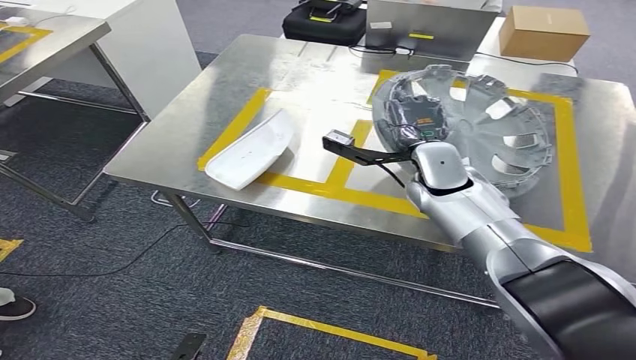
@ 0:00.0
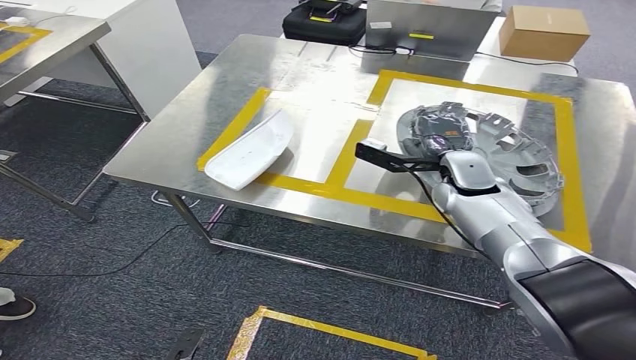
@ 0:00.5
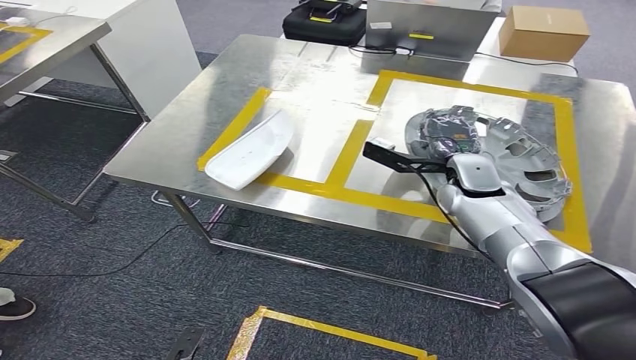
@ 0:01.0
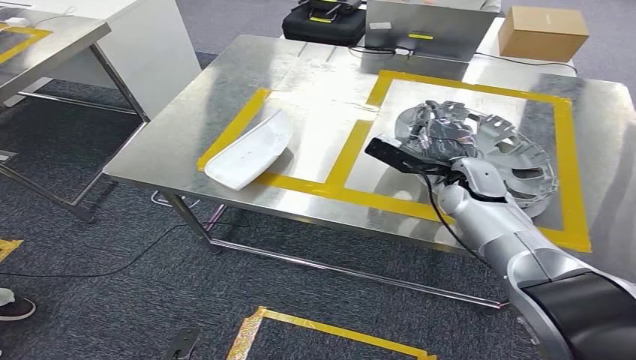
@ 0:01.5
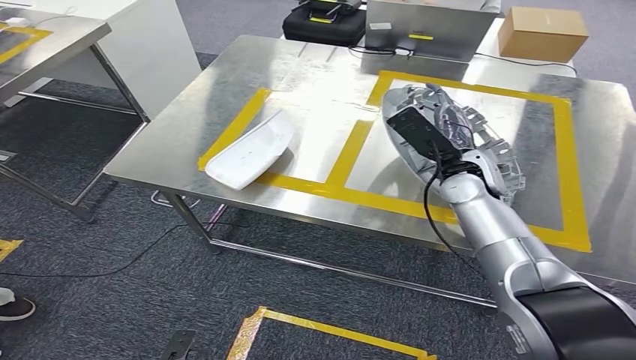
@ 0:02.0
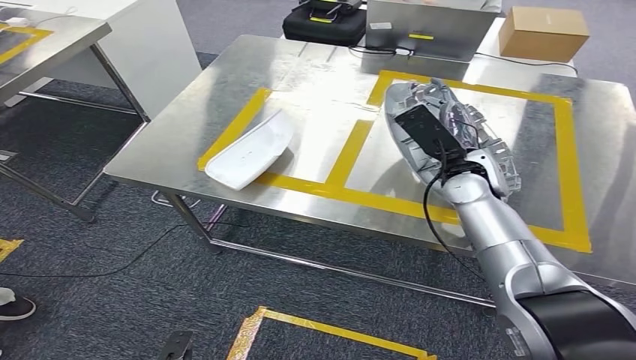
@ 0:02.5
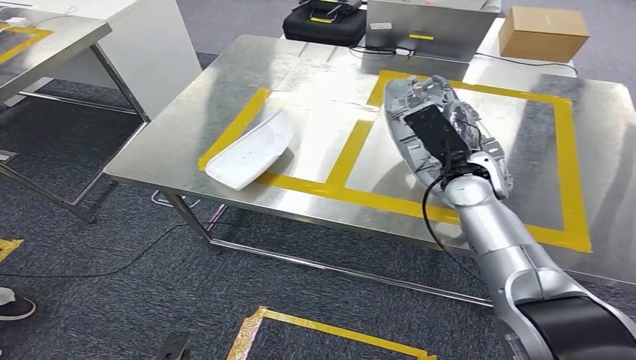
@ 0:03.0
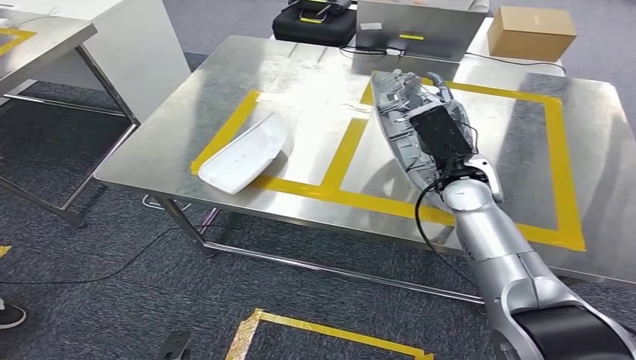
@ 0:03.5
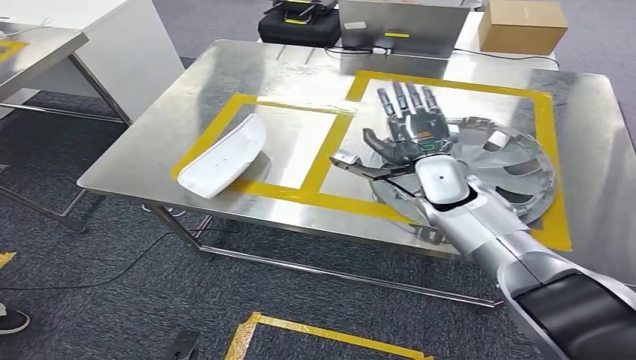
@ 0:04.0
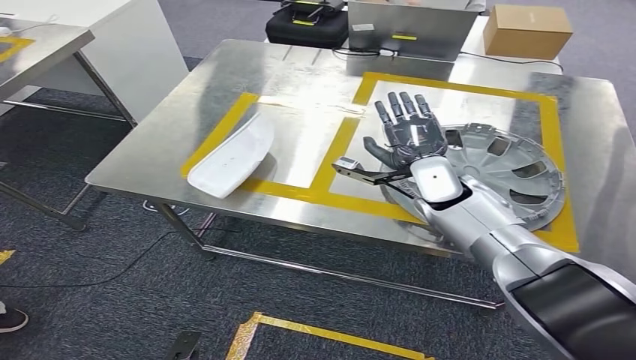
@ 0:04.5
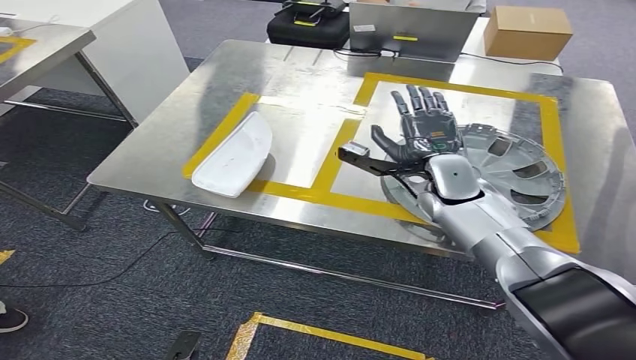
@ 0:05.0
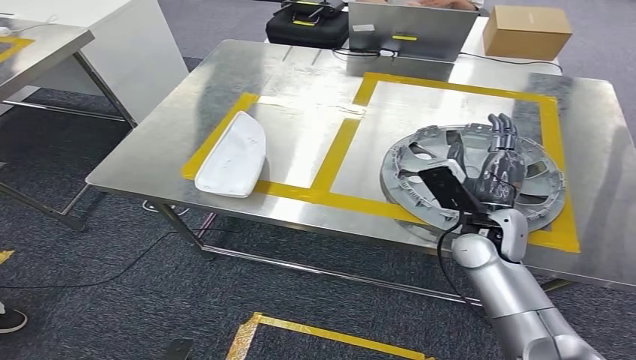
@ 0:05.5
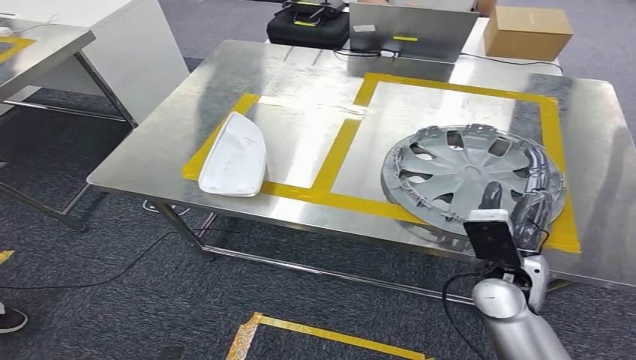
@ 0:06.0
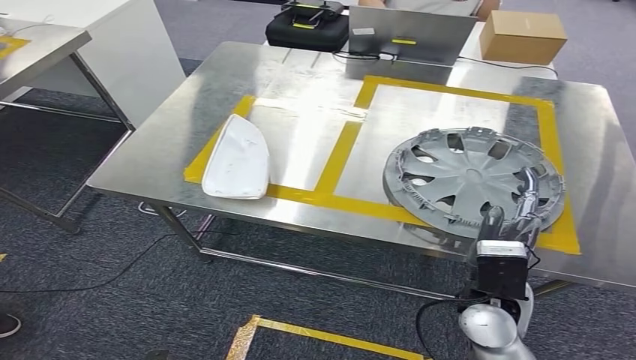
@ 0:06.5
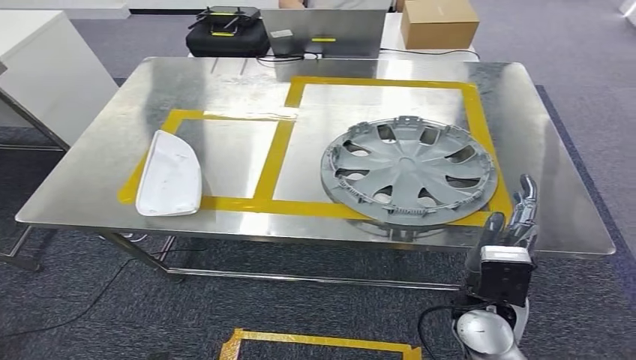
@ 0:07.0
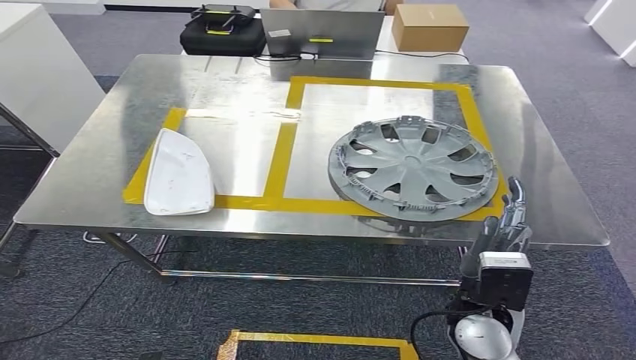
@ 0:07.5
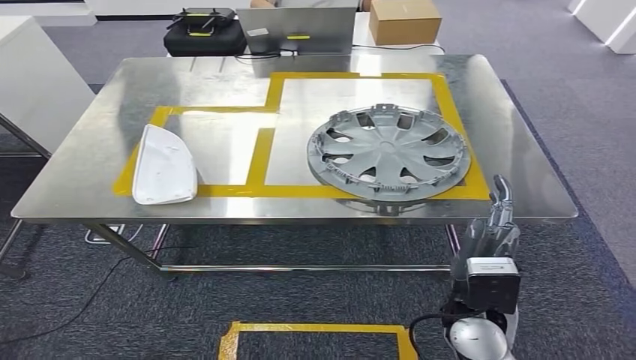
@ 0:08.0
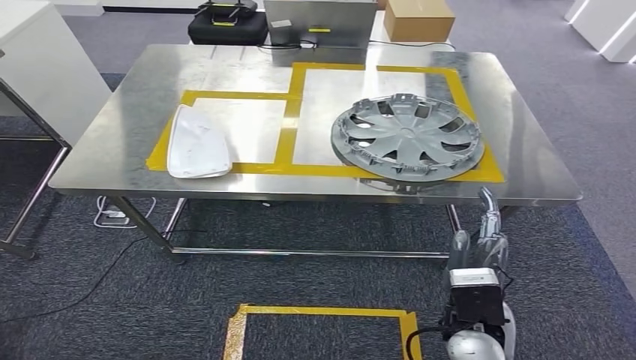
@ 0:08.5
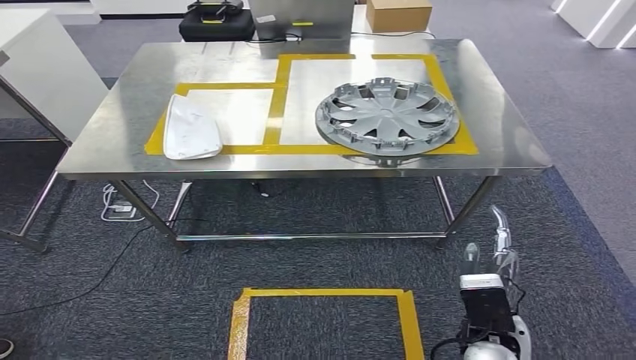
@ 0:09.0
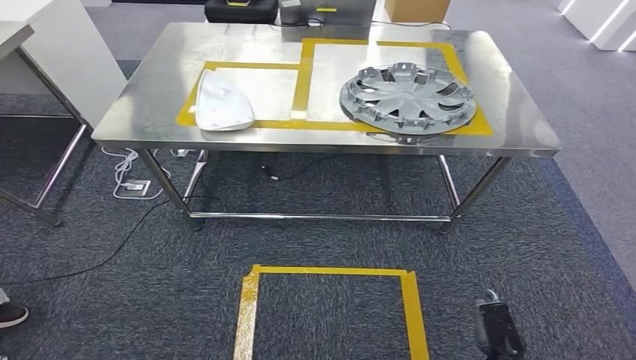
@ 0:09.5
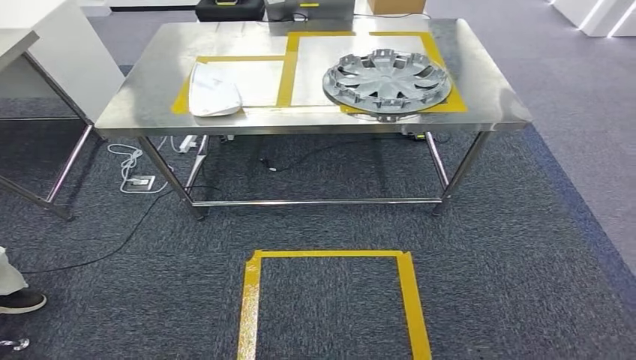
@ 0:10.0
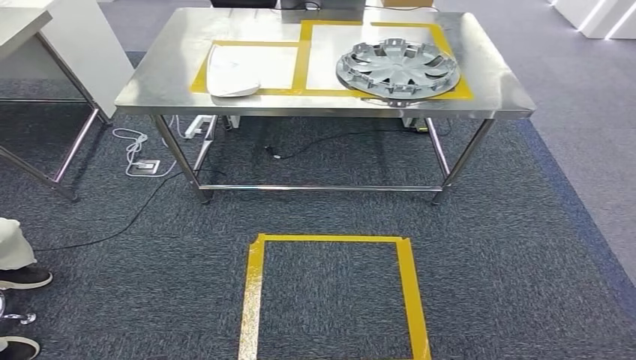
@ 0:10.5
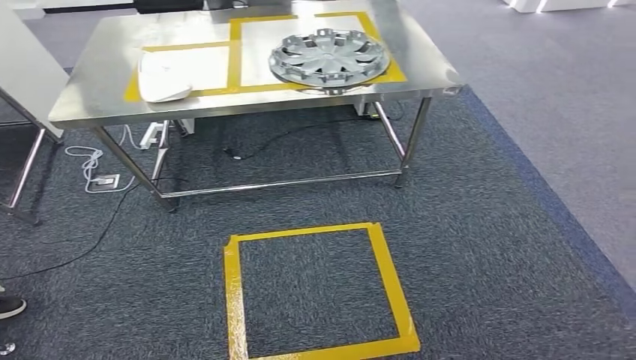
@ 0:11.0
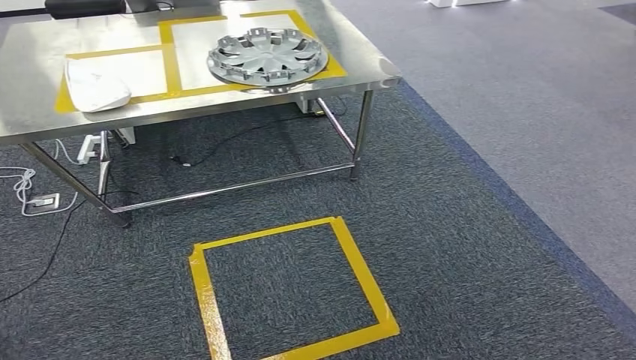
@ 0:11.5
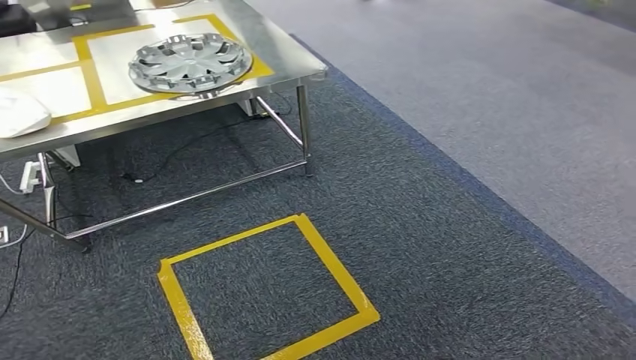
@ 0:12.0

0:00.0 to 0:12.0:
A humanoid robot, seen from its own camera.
Step, 0:00.0 to 0:11.5: Insert the small parts into the corresponding holes on the workbench.

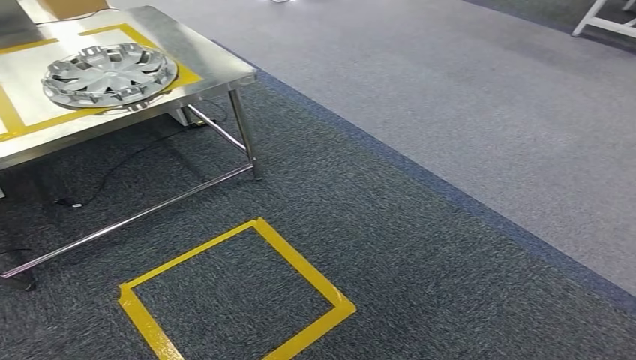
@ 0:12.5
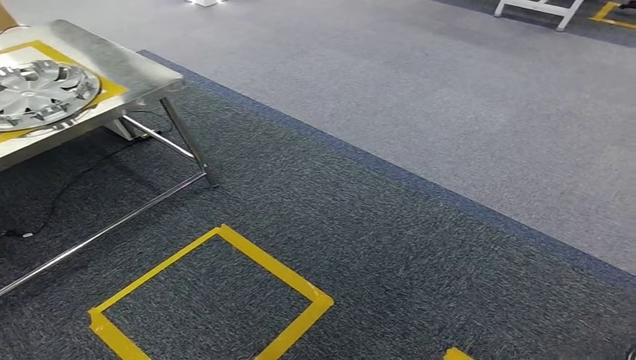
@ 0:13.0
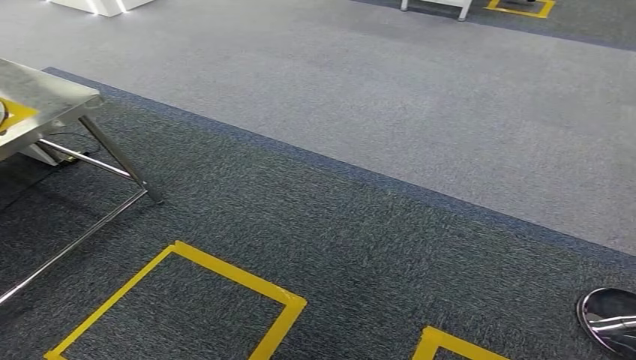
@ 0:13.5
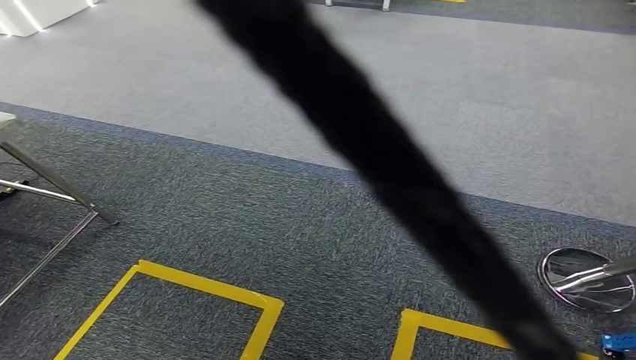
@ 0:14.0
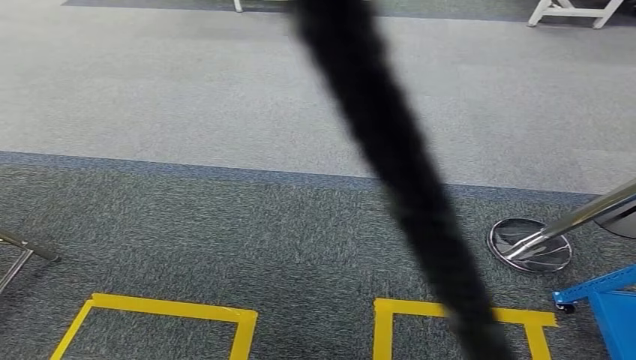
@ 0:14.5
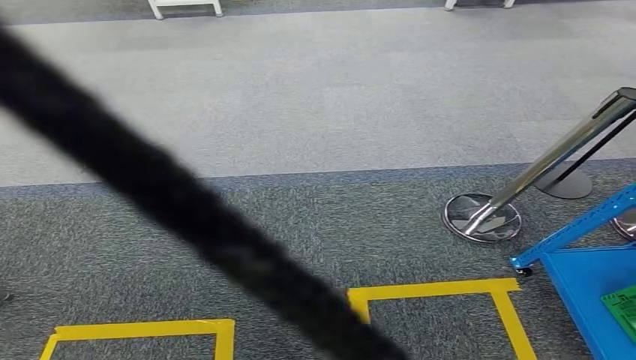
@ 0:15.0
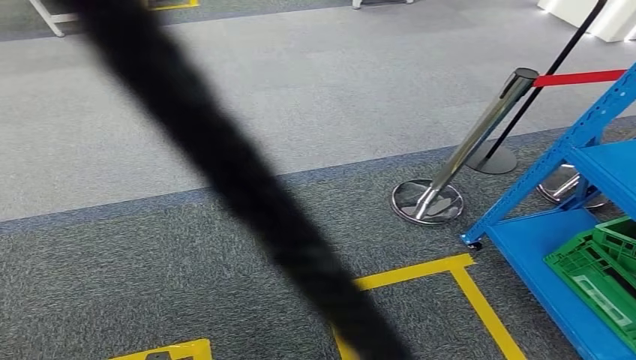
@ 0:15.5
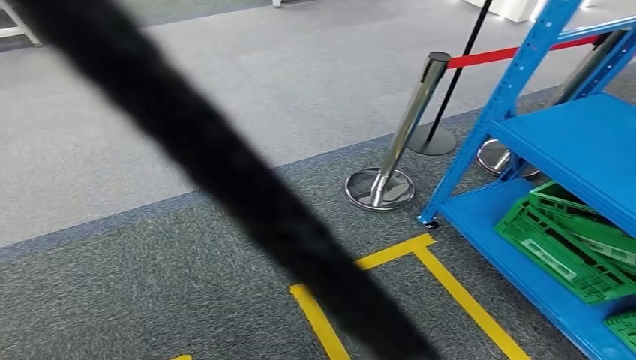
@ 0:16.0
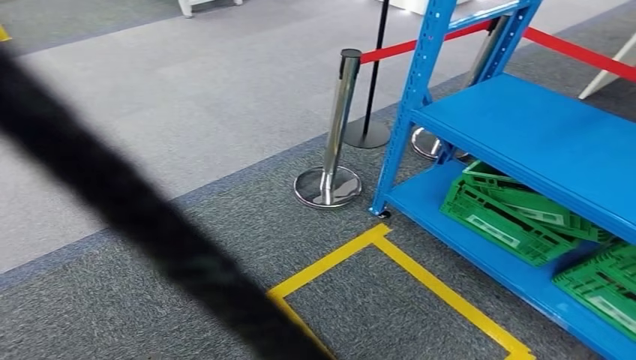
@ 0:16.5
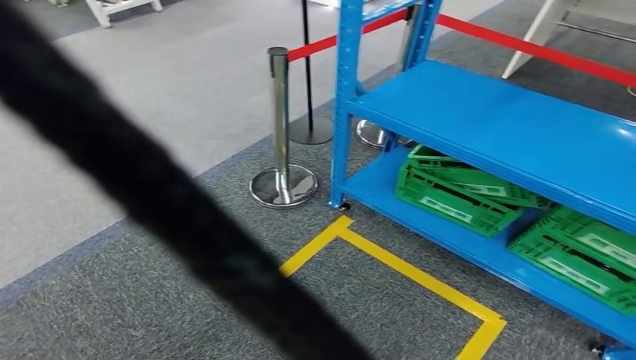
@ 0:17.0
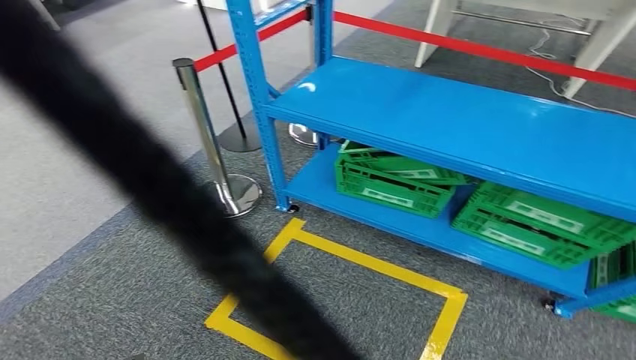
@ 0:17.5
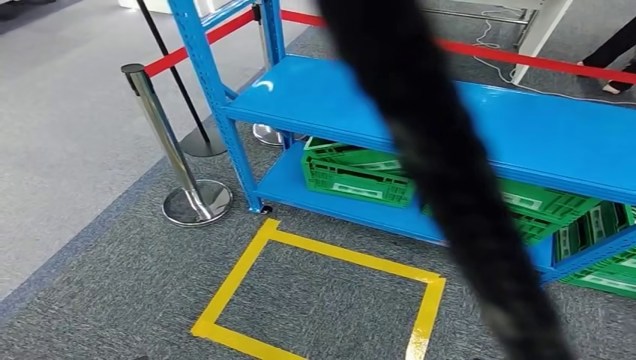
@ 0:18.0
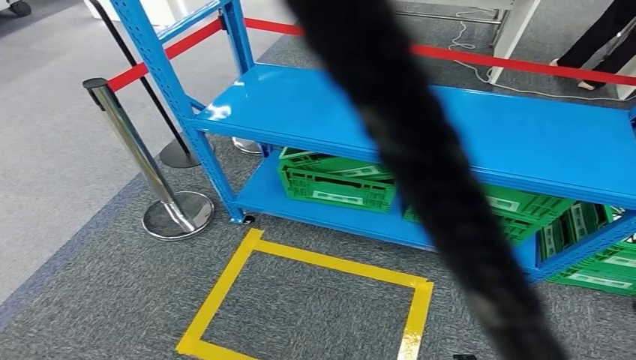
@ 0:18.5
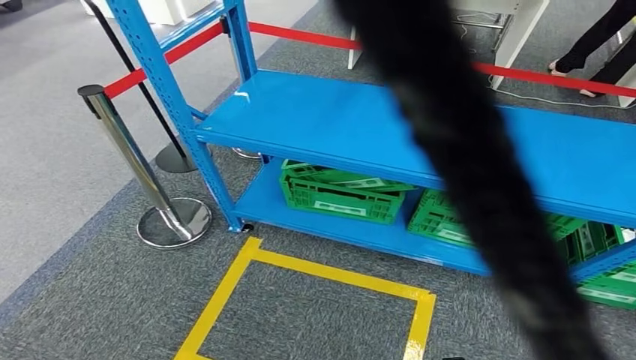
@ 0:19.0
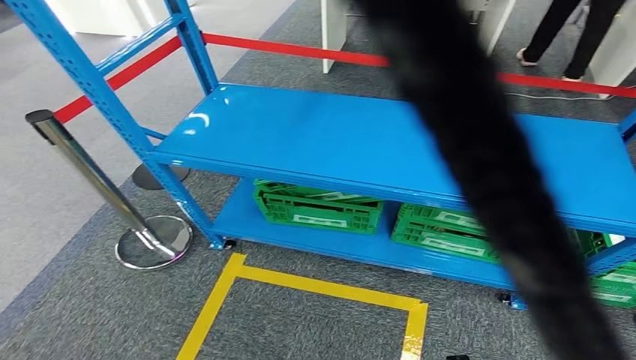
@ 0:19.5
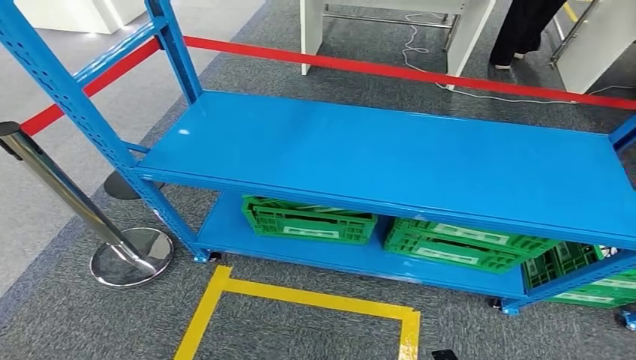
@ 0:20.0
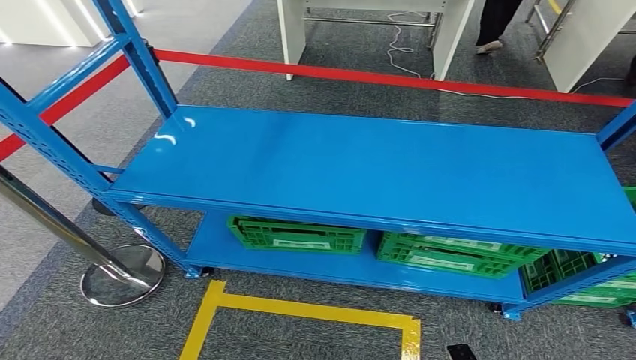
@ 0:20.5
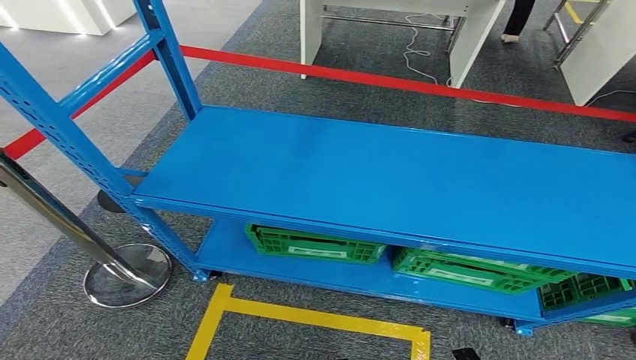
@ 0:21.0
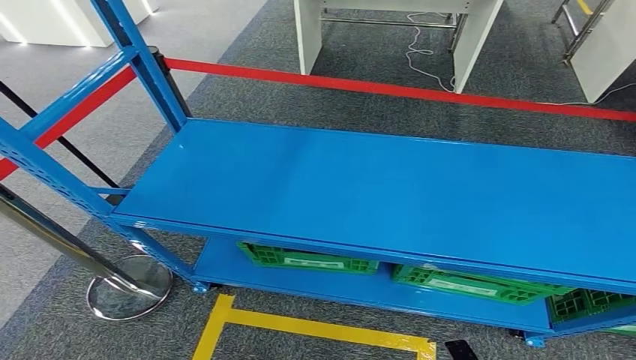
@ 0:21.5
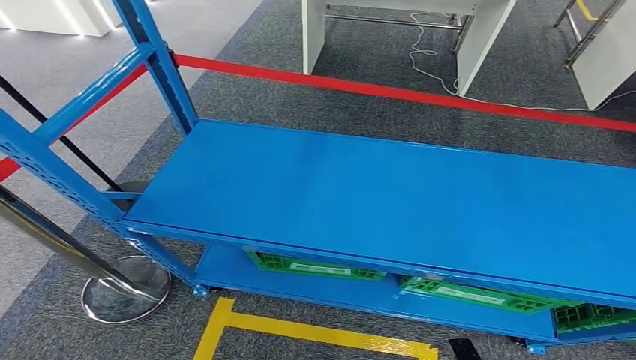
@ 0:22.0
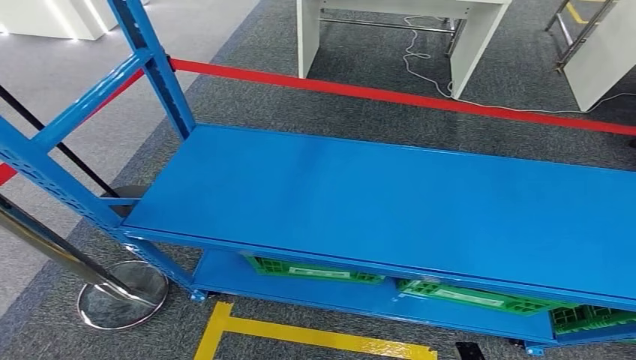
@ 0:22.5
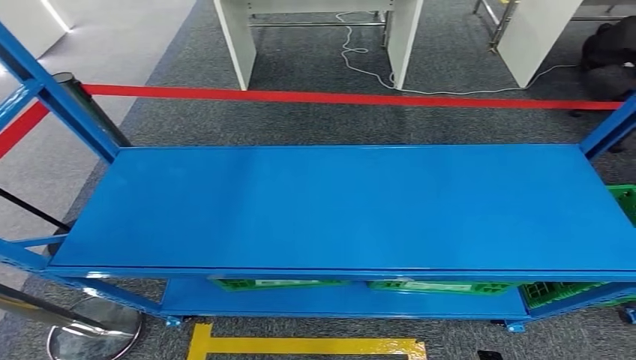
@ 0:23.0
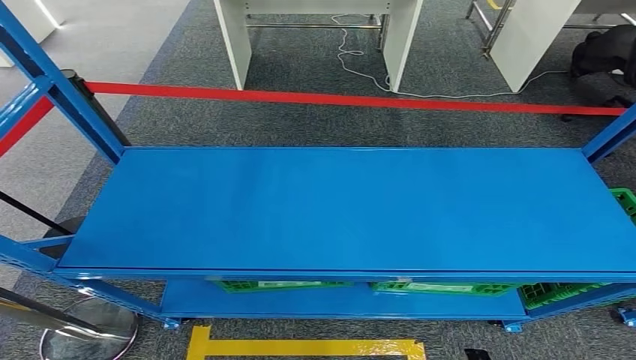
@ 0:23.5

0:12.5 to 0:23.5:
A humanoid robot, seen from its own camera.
Step, 0:12.5 to 0:23.5: Move to the initial position at the workbench.
